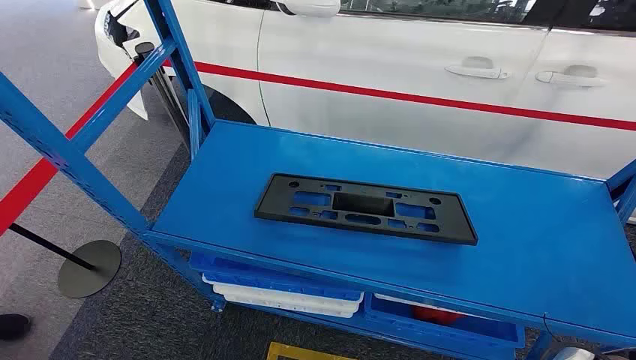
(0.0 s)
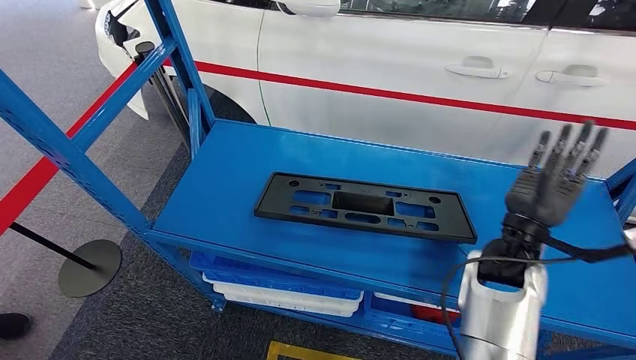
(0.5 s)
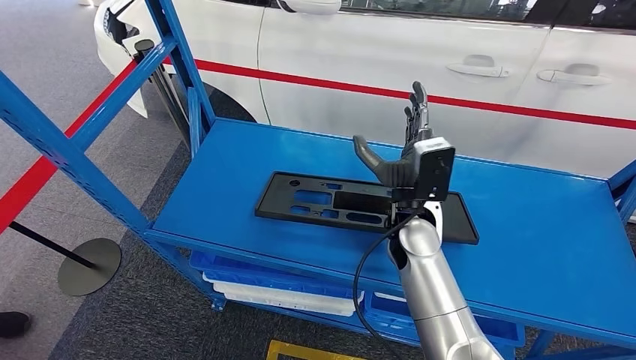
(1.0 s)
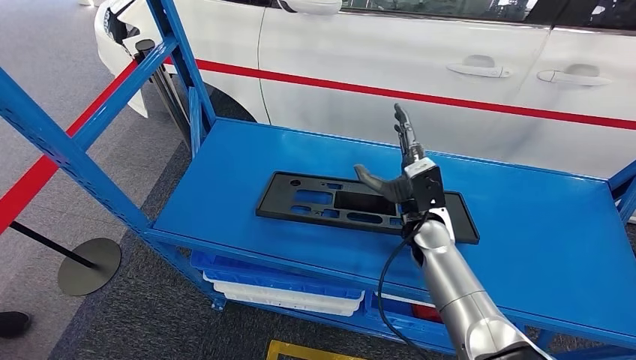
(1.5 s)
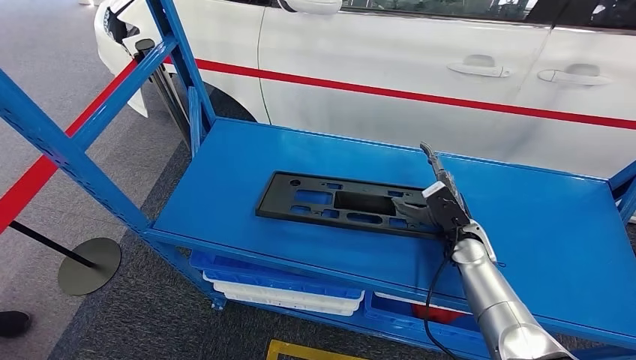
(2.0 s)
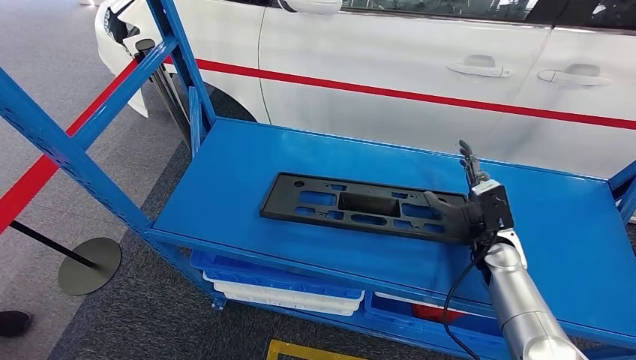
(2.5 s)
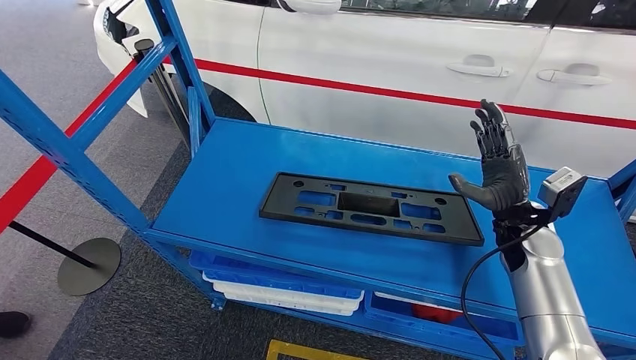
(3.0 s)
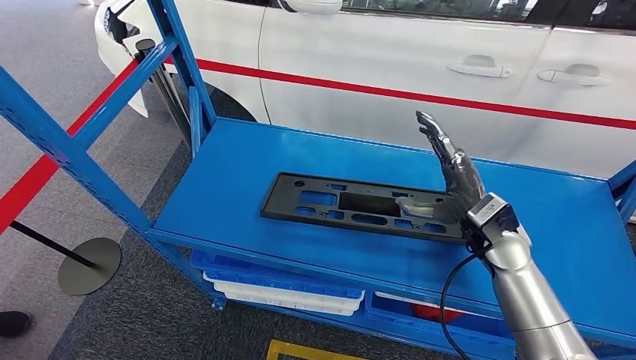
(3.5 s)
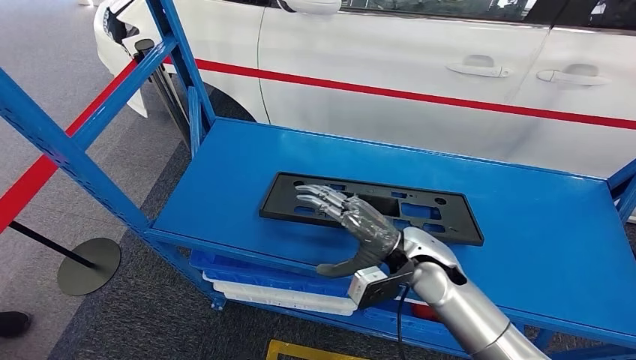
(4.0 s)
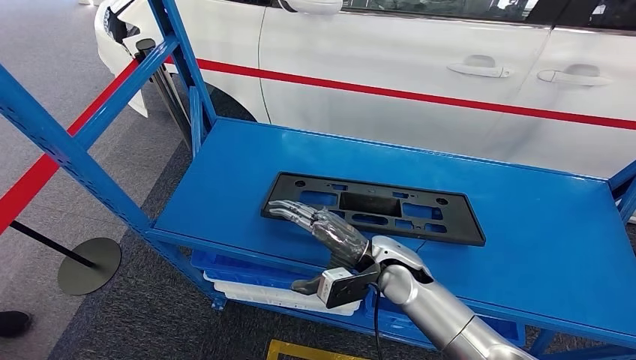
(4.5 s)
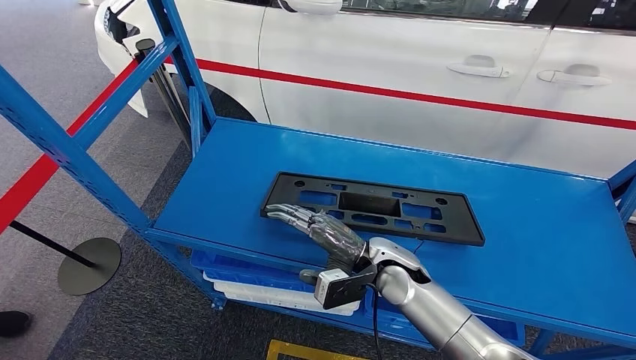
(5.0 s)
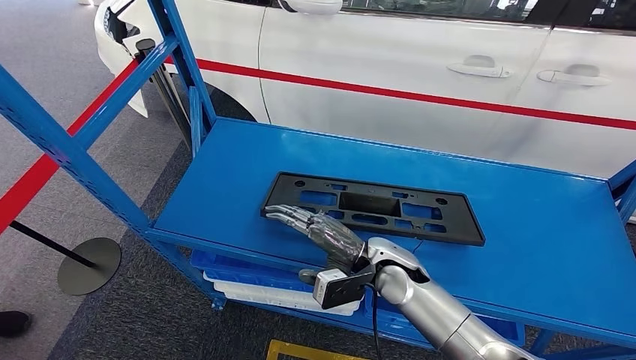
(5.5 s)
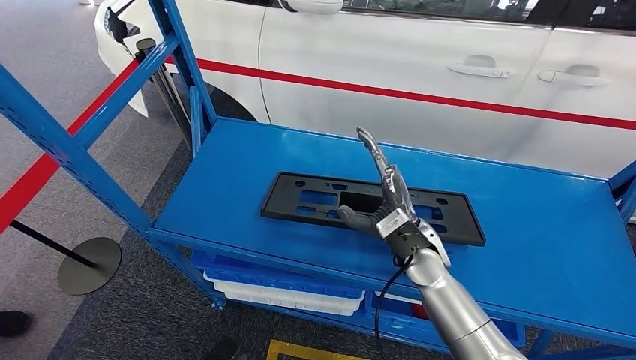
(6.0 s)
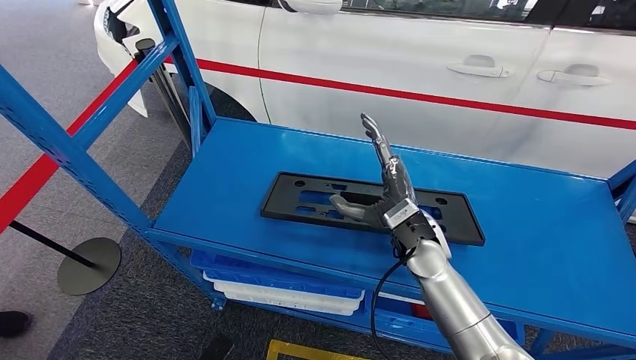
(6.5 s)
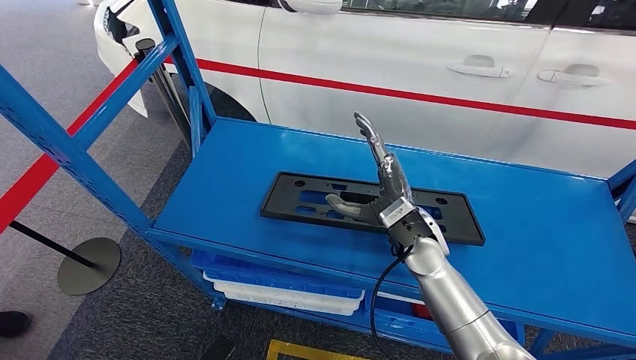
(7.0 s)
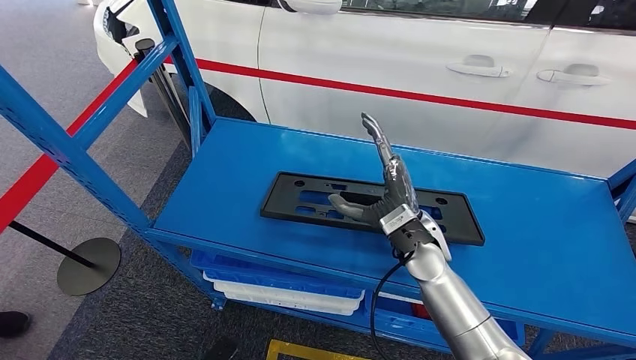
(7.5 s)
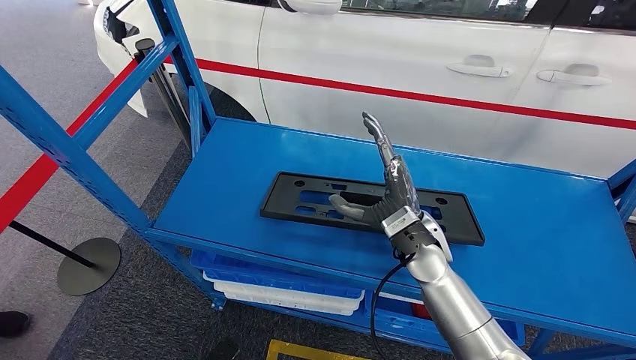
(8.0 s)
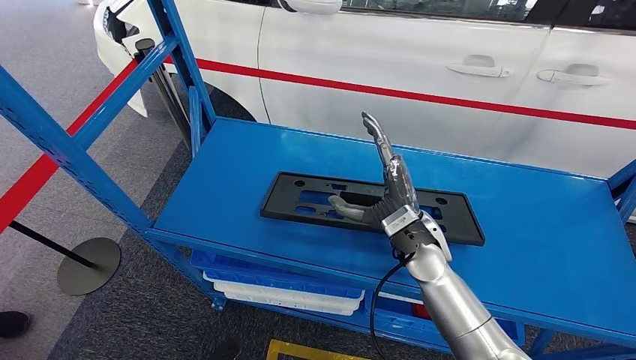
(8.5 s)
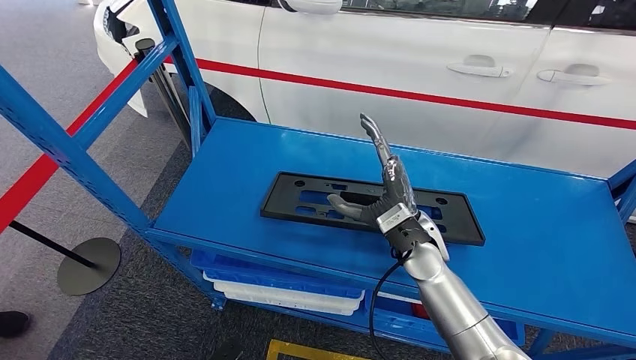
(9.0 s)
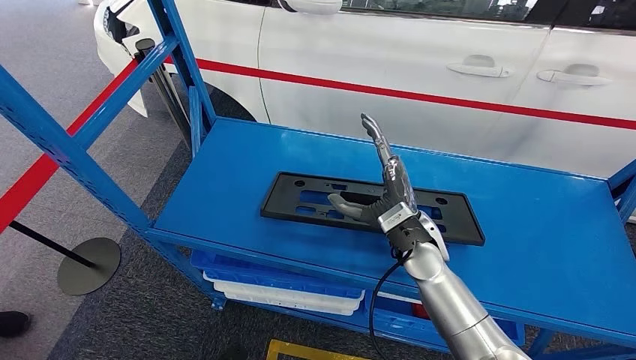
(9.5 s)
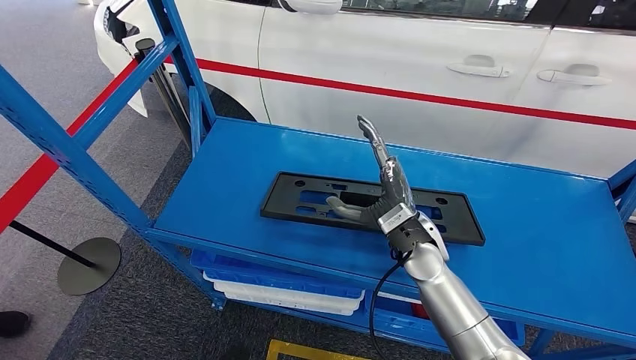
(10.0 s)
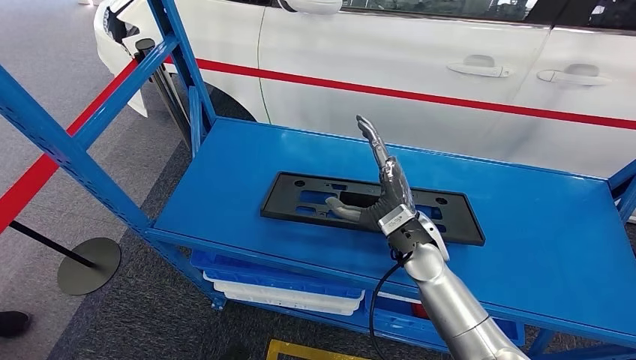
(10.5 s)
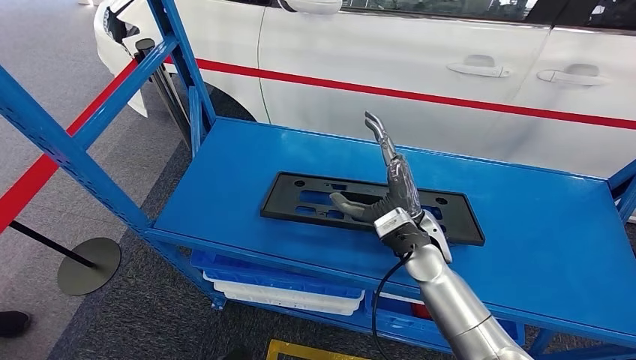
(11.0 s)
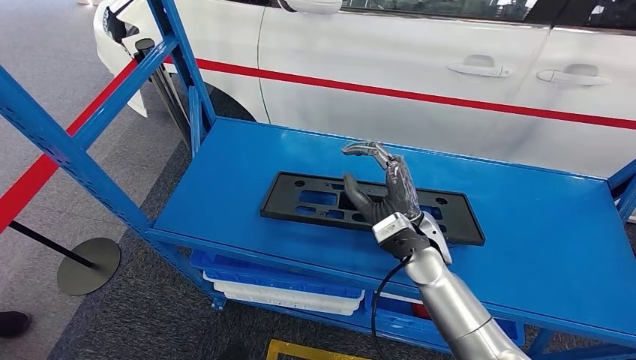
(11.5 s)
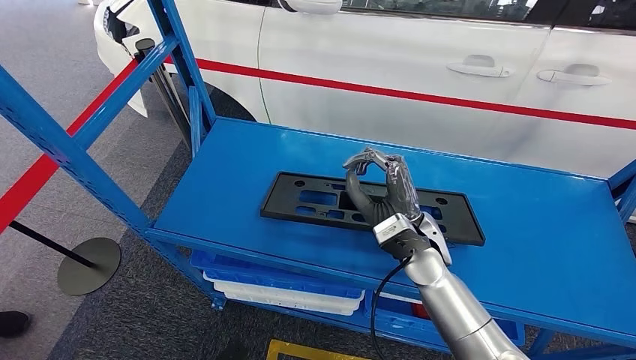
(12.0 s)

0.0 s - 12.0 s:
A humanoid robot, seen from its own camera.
2.0 s - 4.0 s: The right hand heads to the left and upward, covering some 15 cm.
6.0 s - 12.0 s: The hands make only small movements.

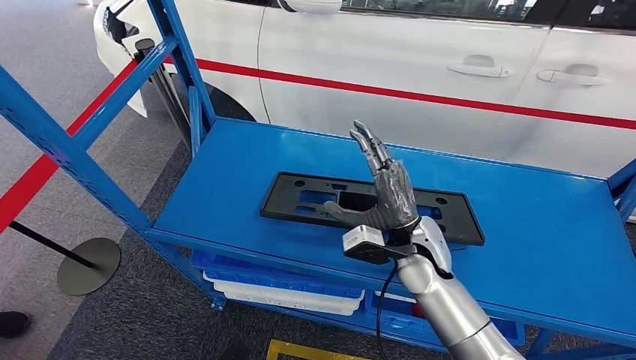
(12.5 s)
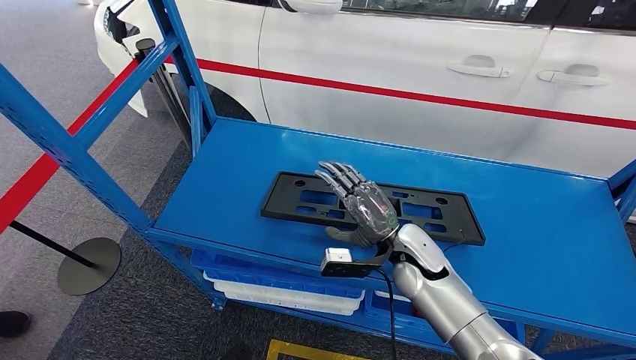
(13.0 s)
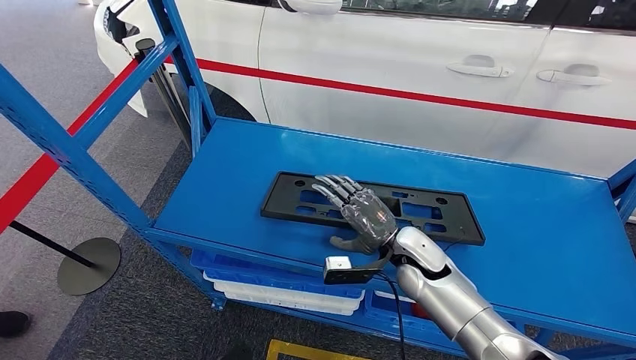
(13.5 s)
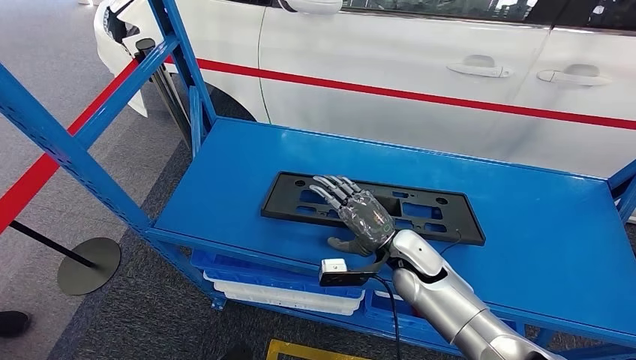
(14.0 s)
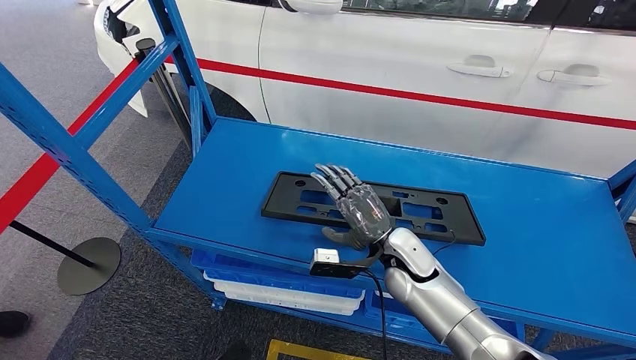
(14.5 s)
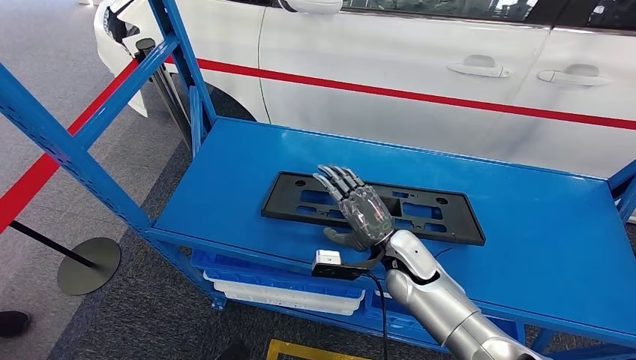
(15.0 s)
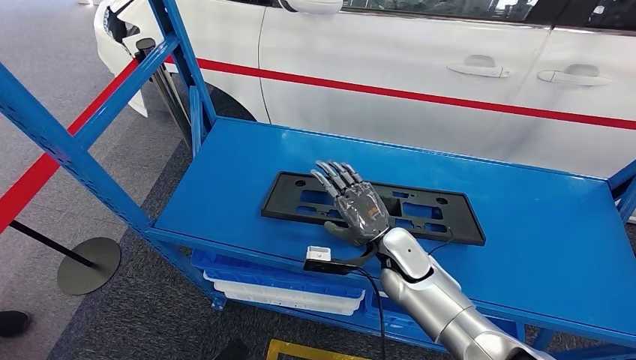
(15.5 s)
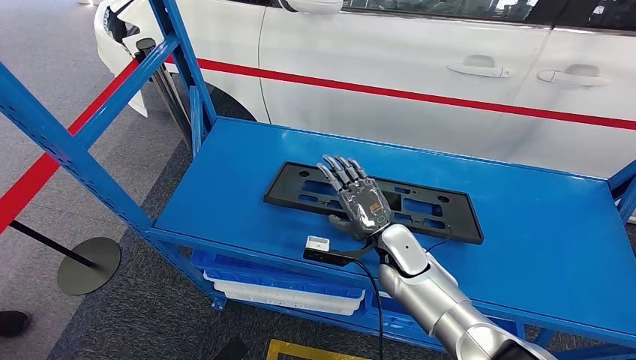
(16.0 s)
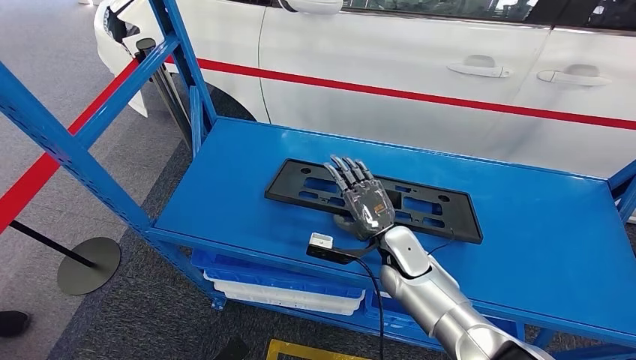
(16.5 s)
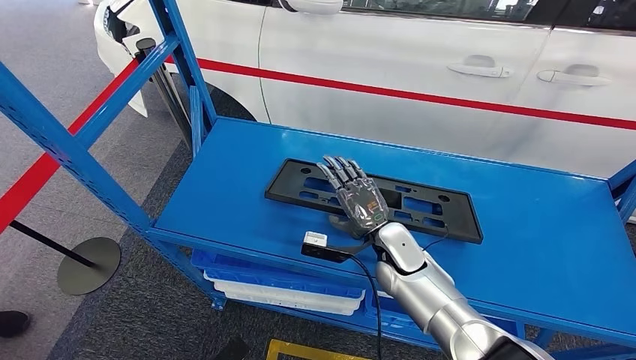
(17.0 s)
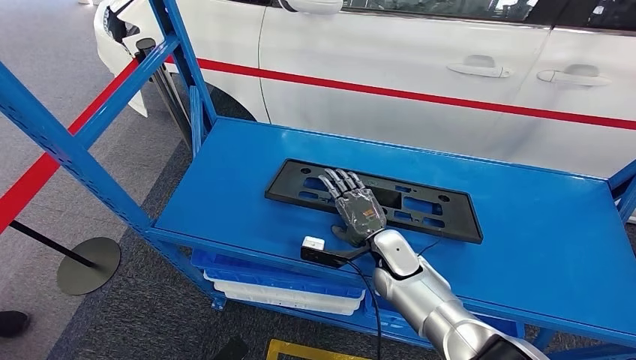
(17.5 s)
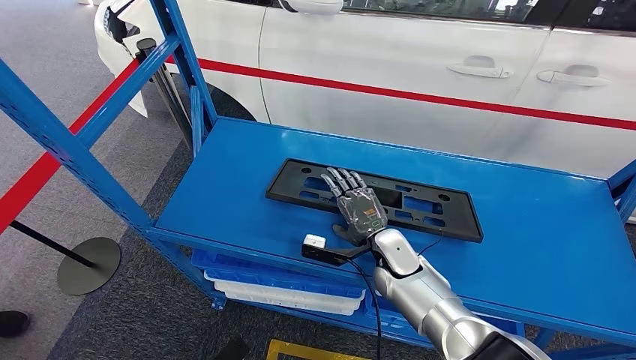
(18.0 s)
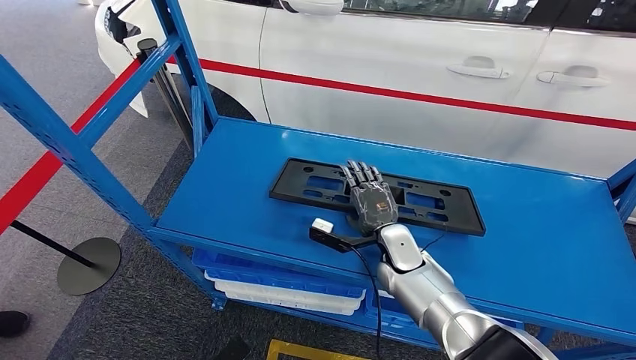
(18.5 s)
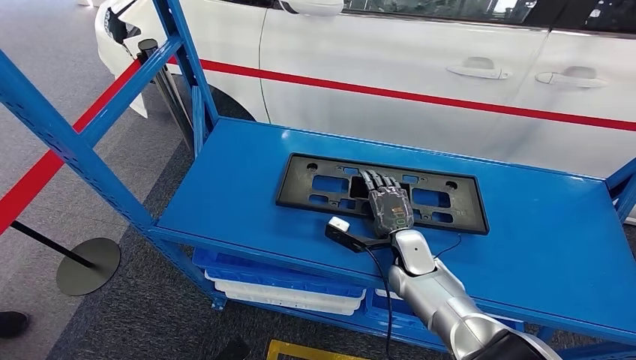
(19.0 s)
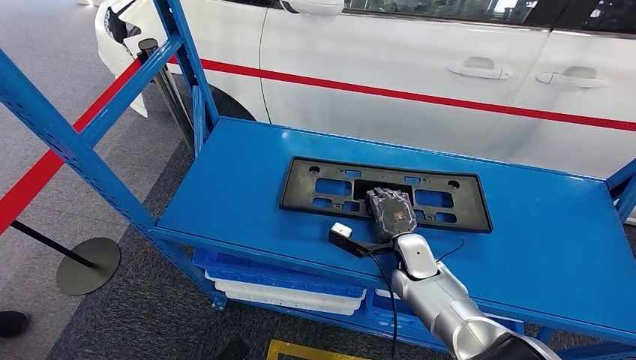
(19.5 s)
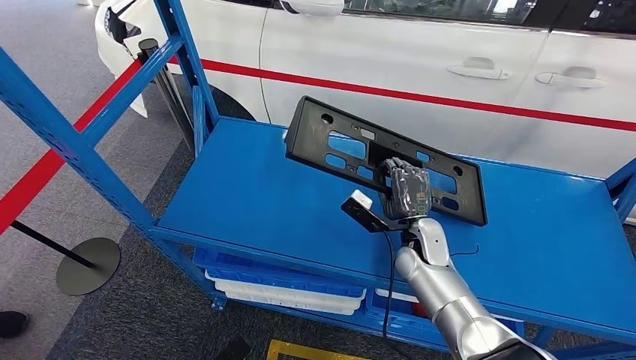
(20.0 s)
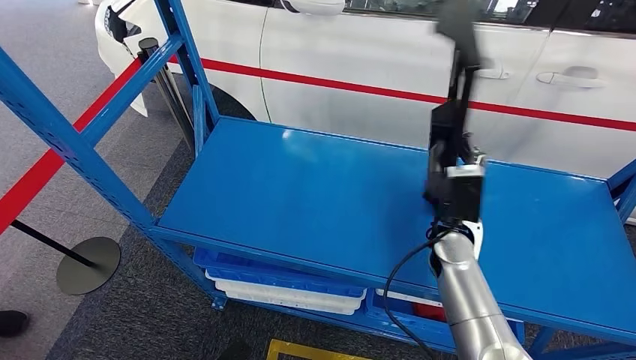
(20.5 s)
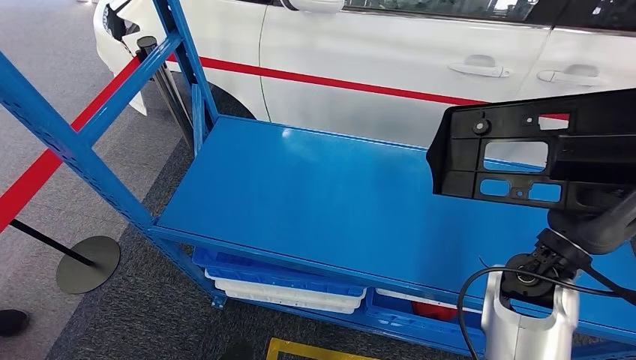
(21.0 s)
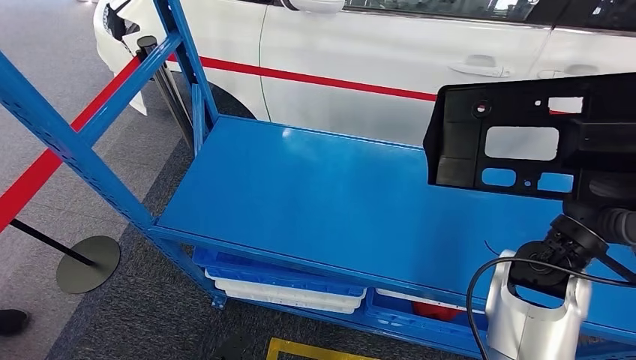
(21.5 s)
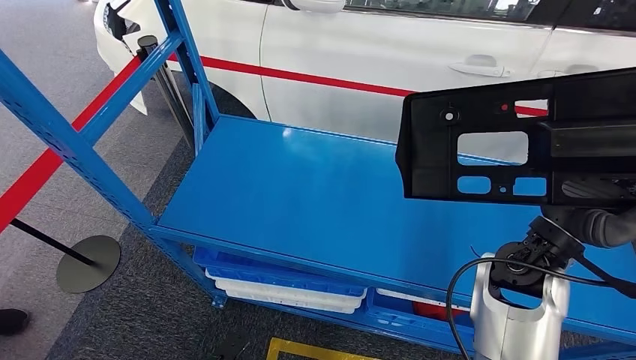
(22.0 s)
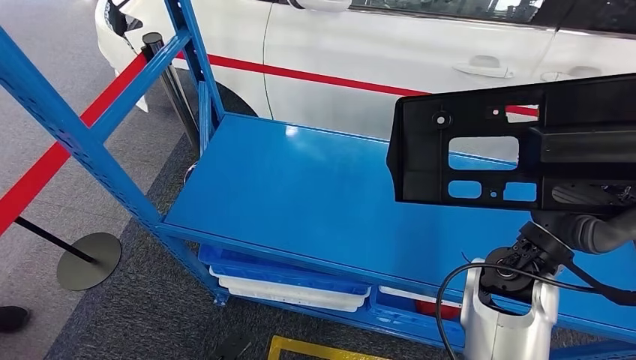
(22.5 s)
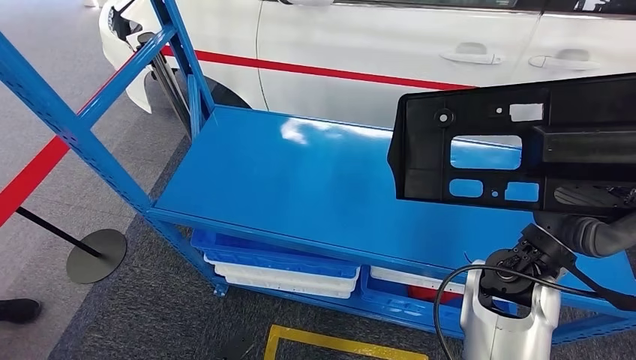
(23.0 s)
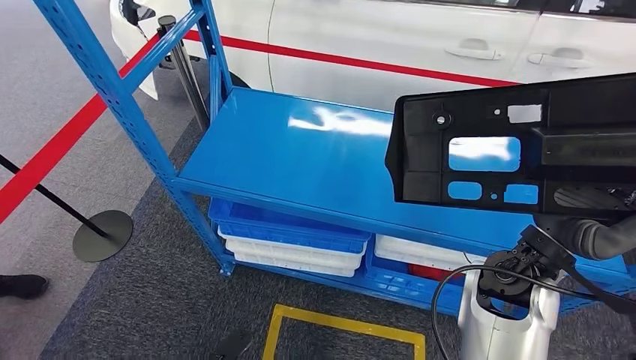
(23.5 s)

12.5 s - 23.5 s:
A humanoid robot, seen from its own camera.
Step, 12.5 s - 21.5 s: Pick up the large material from the shelf.
12.5 s - 14.5 s: The right hand goes roughly 5 cm downward.
14.5 s - 16.0 s: The hands stay close to where they were, moving slightly.
16.0 s - 18.0 s: The hands stay close to where they were, moving slightly.
